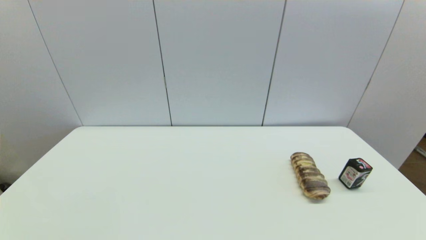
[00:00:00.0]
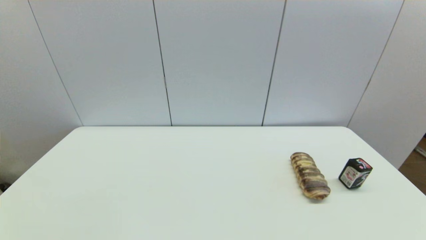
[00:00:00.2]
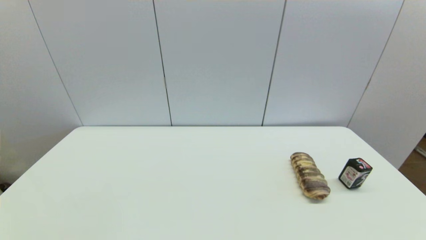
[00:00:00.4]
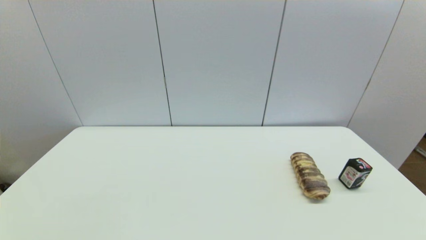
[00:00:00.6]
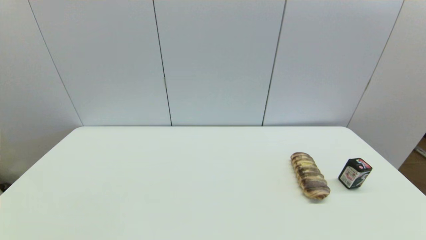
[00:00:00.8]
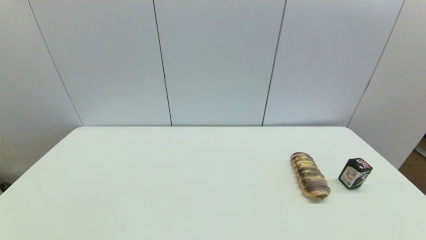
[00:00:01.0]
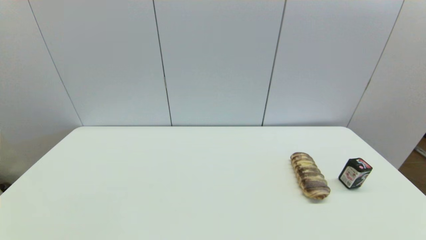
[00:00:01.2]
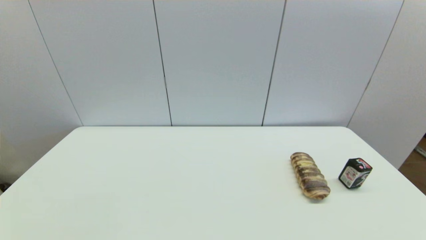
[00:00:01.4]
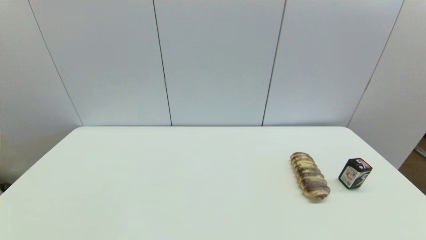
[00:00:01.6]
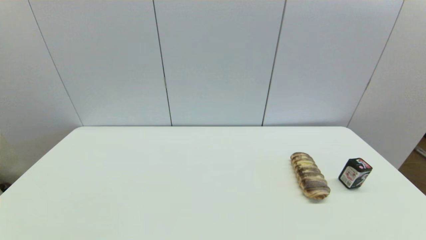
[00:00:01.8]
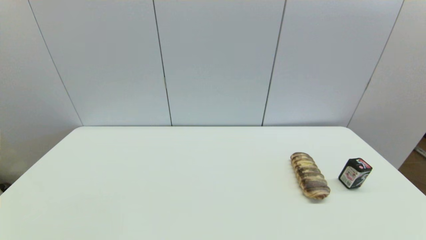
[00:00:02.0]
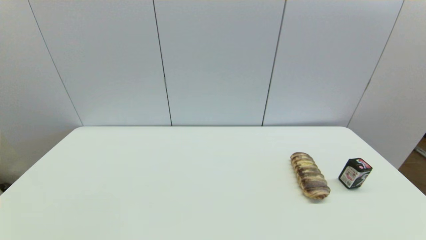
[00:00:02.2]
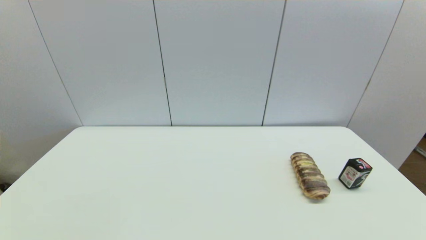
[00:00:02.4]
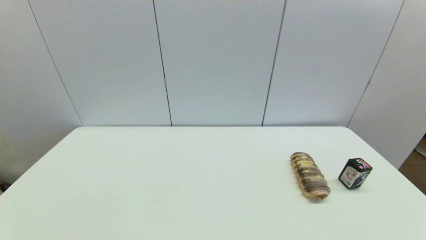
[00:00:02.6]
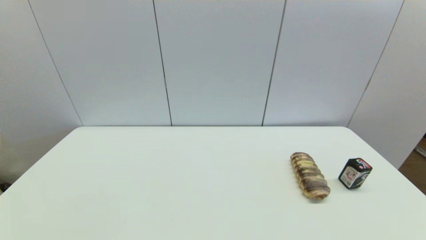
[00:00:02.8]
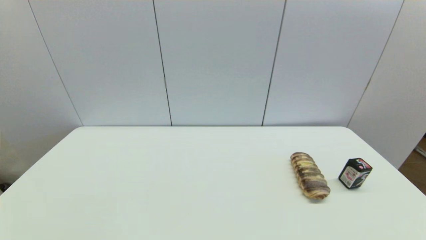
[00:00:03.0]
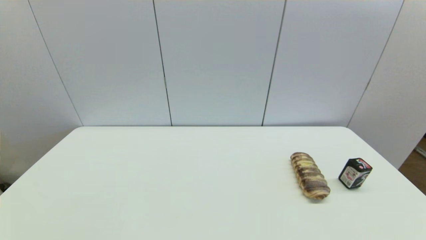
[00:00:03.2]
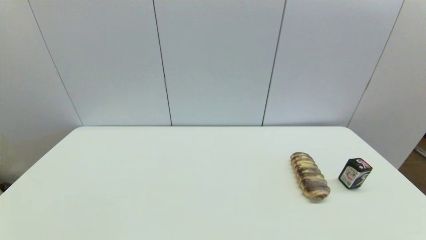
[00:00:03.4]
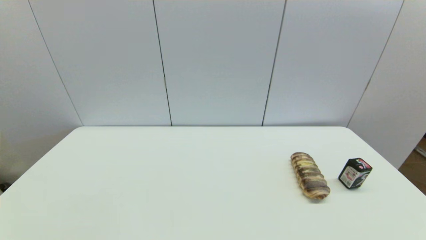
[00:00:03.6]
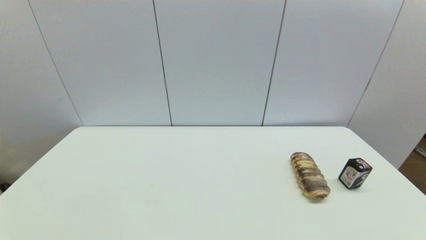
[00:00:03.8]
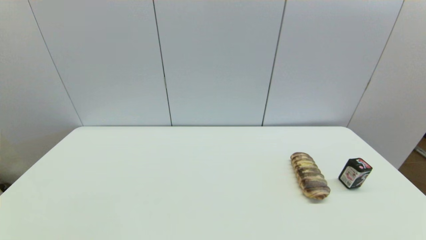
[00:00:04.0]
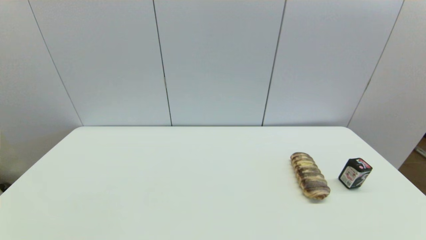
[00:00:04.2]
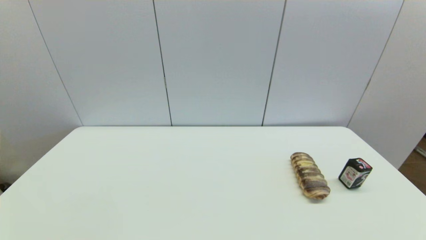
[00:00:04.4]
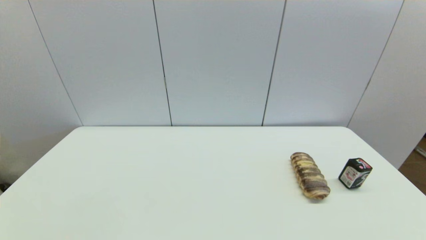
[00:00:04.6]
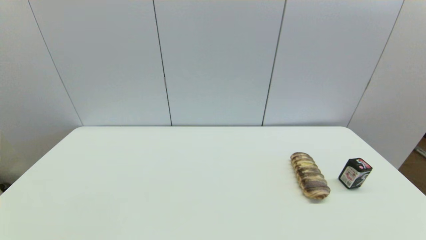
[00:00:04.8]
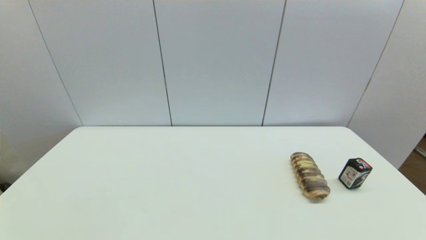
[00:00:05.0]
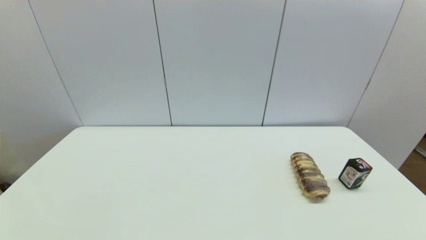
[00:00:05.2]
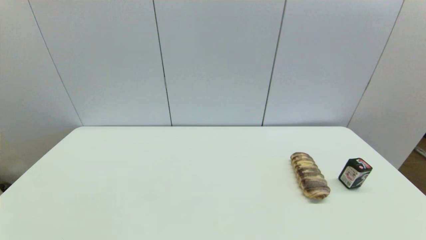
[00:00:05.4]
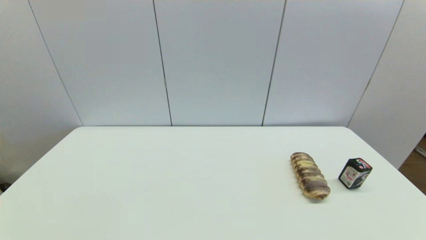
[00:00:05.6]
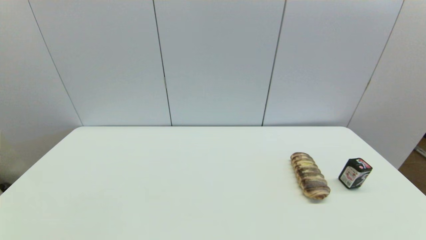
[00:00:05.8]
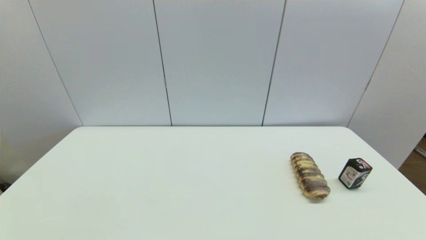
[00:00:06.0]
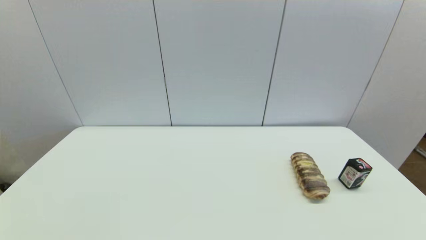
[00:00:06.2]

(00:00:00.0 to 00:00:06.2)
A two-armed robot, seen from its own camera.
00:00:03.2 - 00:00:06.2: The two grippers keep their place.

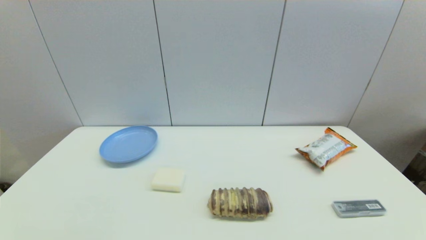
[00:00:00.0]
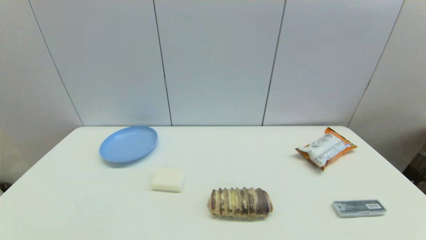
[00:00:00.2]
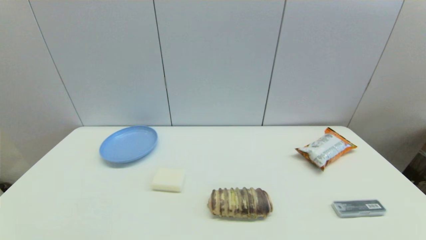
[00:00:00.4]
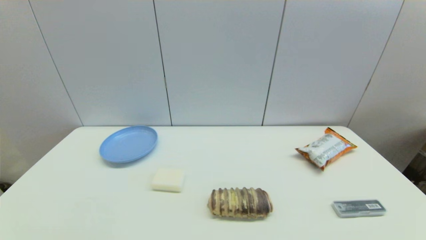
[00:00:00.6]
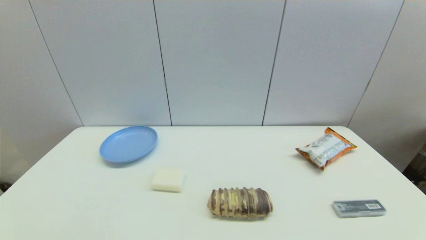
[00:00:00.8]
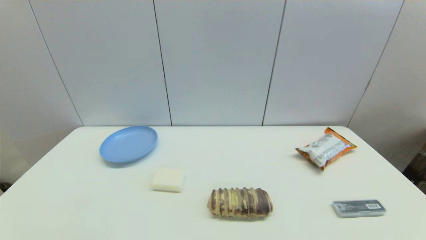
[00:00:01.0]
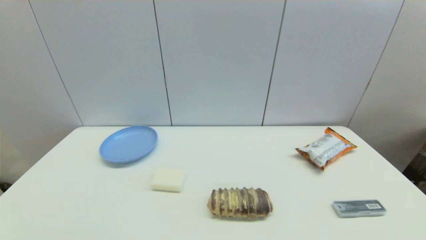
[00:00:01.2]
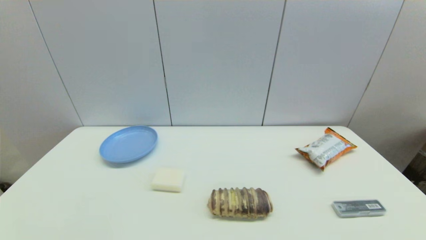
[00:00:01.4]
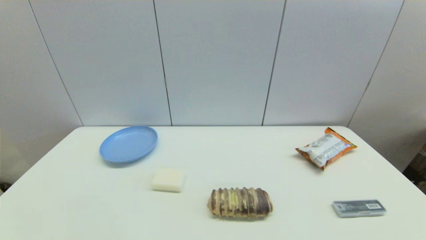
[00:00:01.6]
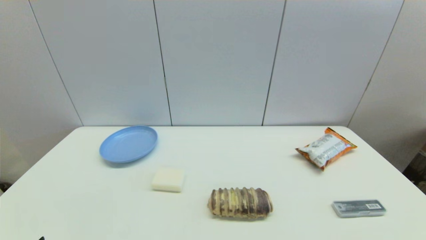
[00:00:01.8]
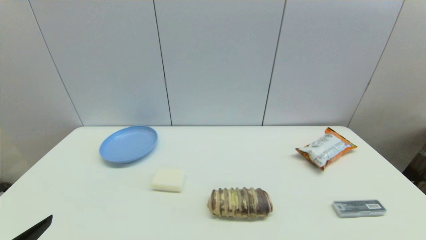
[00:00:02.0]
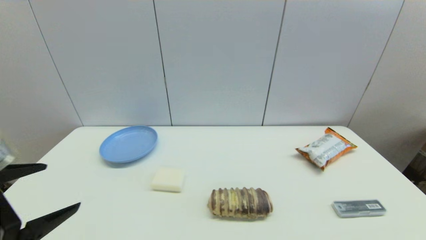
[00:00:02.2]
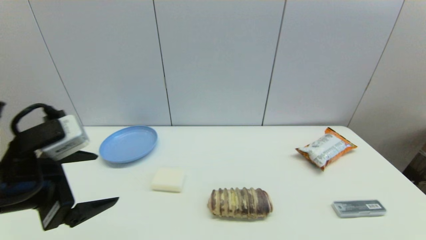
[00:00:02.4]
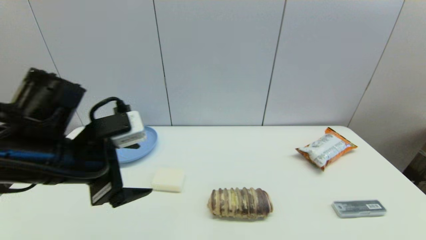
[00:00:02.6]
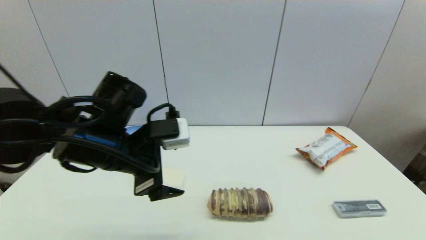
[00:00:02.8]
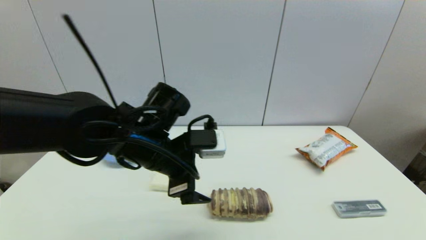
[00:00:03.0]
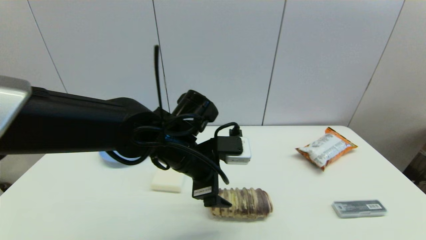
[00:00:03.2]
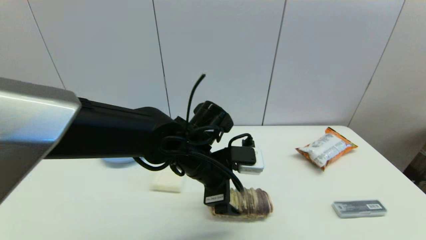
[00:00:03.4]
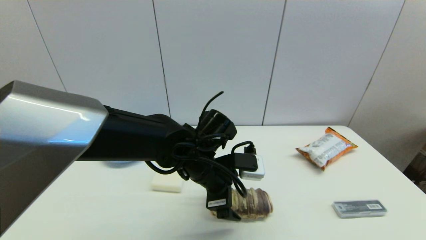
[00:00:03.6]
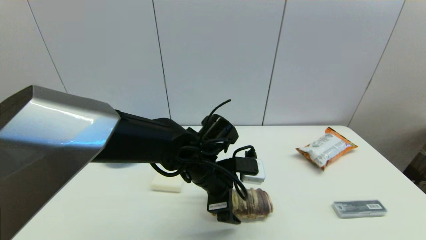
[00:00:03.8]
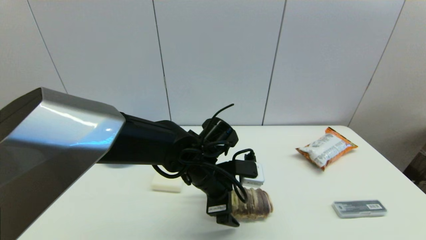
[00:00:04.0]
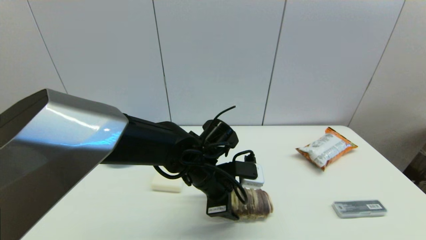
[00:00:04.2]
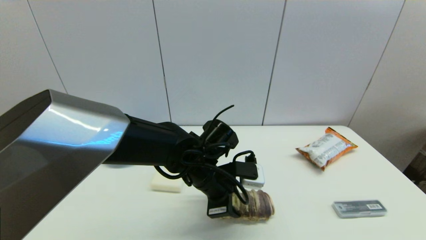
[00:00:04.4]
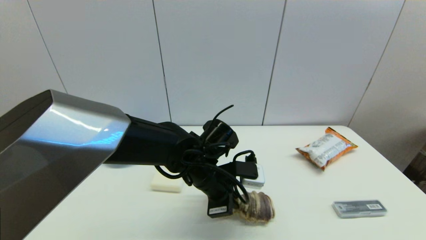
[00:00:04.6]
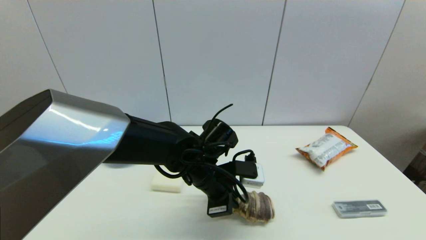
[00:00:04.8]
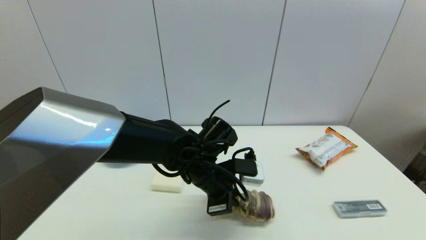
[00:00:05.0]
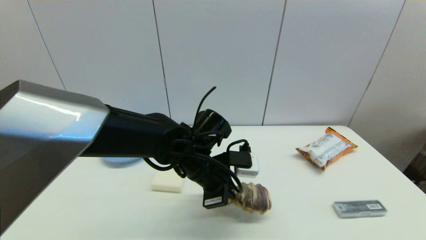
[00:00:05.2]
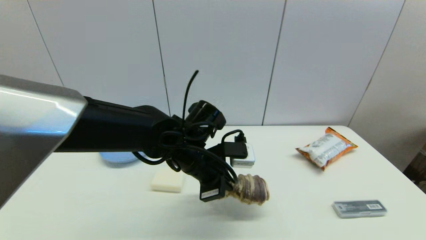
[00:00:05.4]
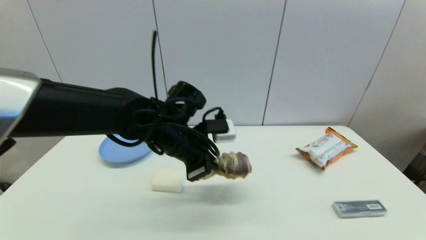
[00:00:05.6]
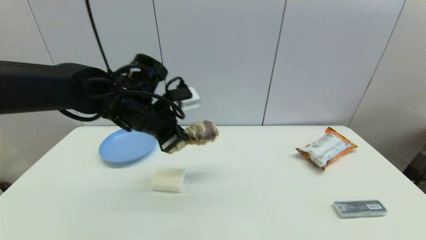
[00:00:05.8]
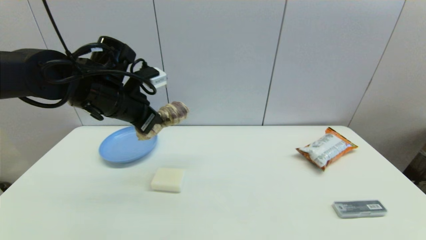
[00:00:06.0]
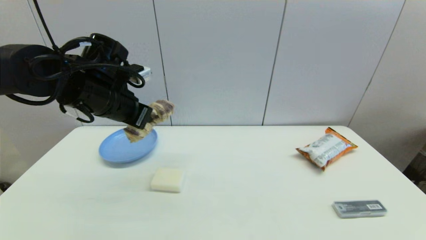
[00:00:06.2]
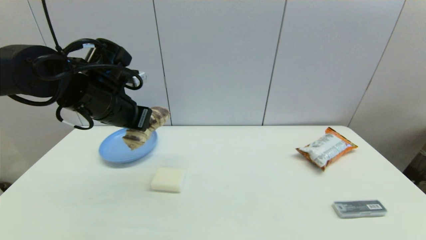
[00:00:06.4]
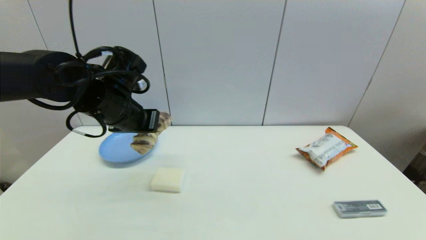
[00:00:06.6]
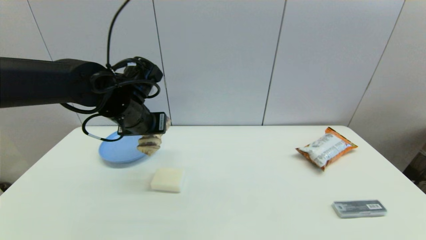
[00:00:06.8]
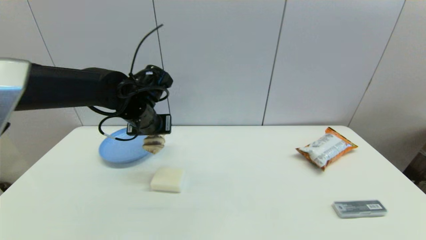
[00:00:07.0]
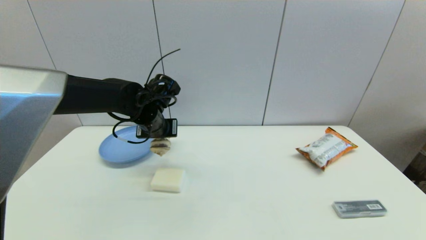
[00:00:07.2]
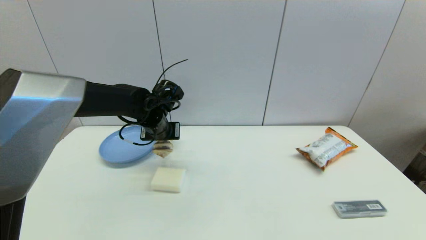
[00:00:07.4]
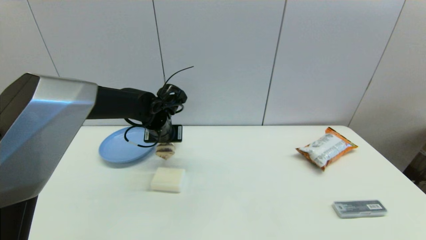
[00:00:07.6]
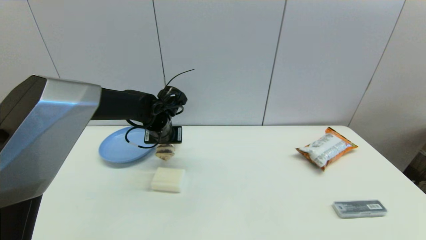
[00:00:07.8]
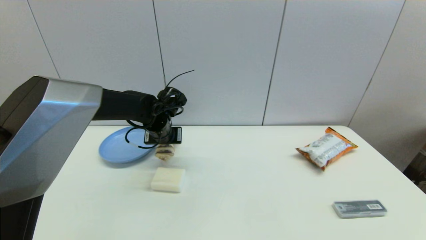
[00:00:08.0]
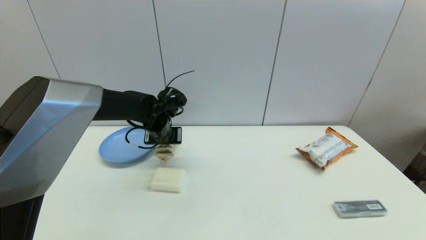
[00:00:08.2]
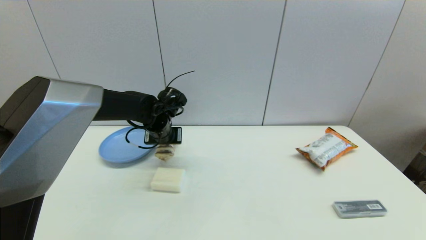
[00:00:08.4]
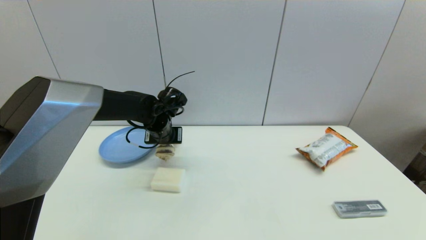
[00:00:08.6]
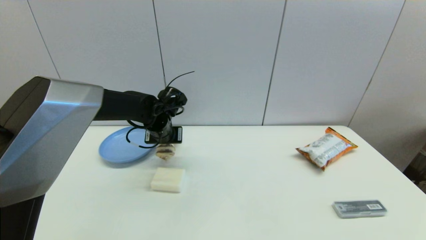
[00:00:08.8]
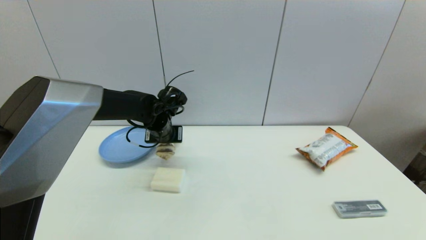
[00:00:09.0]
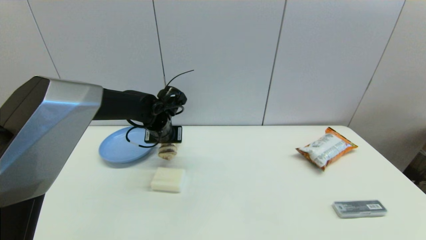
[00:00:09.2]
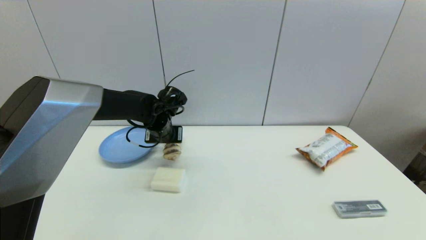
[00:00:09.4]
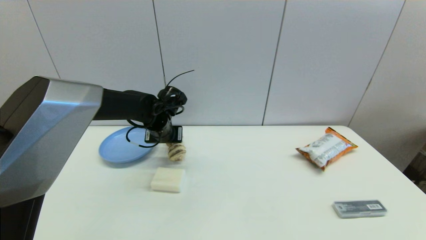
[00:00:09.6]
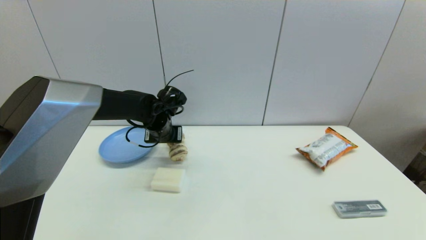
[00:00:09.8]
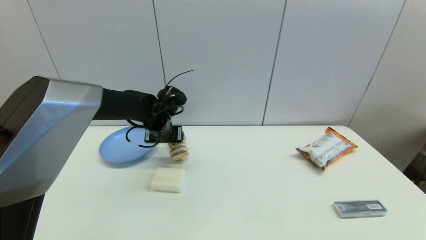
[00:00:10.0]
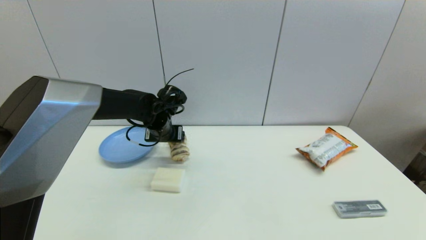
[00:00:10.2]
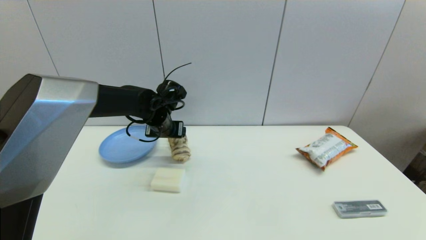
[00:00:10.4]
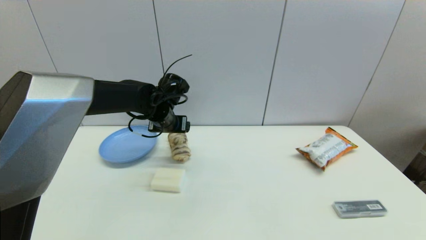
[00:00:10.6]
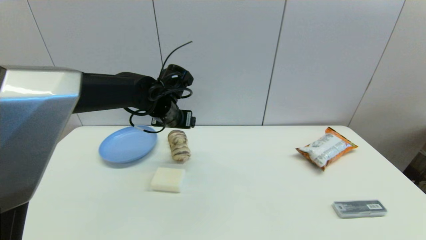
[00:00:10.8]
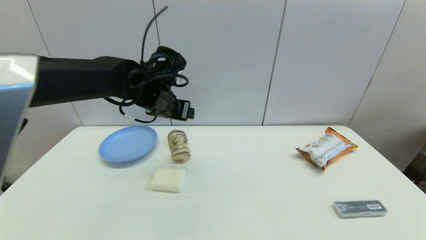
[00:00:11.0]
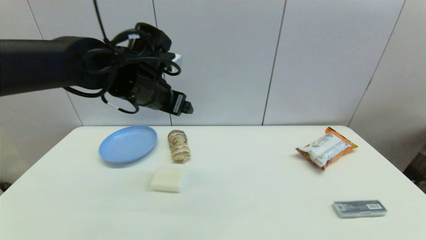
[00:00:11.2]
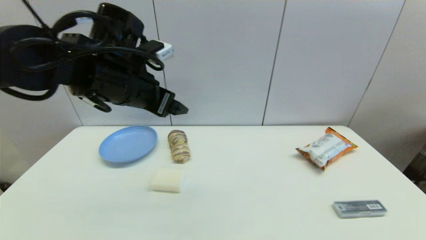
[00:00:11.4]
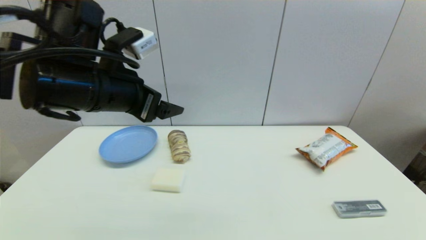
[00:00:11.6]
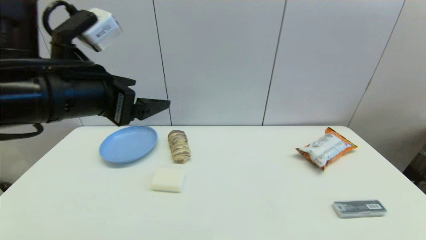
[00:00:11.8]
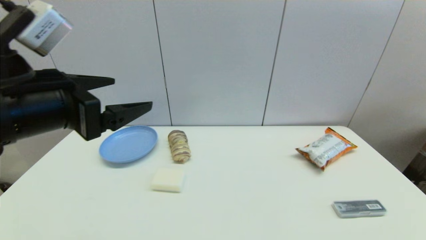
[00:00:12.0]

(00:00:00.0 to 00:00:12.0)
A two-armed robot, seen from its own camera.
Step, 00:00:02.0 - 00:00:04.8: Grasp the long bread with left gripper.
Step, 00:00:05.0 - 00:00:10.2: Place the long bread on the table with left gripper.
00:00:01.6 - 00:00:03.0: The left gripper shifts some 35 cm forward and to the right.
00:00:03.0 - 00:00:04.4: The left gripper heads downward and to the right, covering approximately 10 cm, and closes its fingers.
00:00:04.4 - 00:00:06.0: The left gripper moves to the left and upward, some 20 cm, and closes its fingers.
00:00:06.0 - 00:00:07.6: The left gripper moves downward, forward and to the right, about 15 cm.
00:00:07.6 - 00:00:09.0: The two grippers keep their place.
00:00:09.0 - 00:00:10.4: The left gripper opens up.
00:00:10.4 - 00:00:12.0: The left gripper travels backward and upward by about 30 cm.
